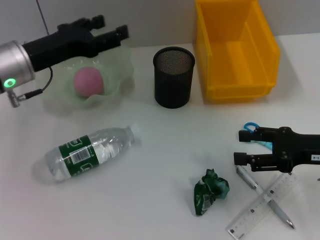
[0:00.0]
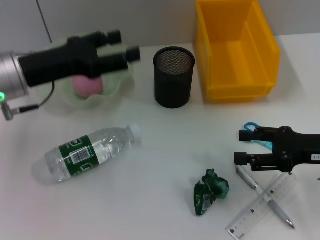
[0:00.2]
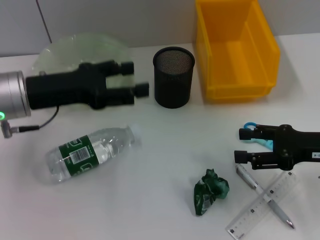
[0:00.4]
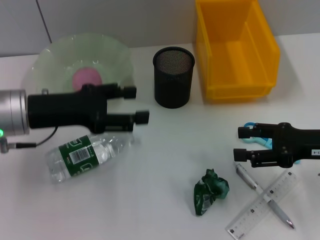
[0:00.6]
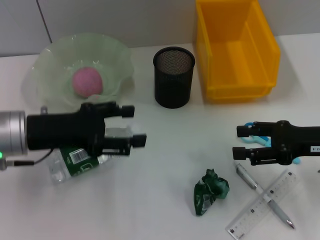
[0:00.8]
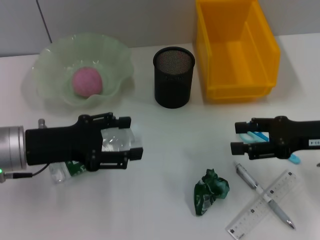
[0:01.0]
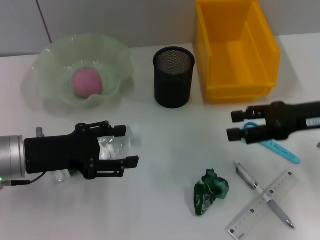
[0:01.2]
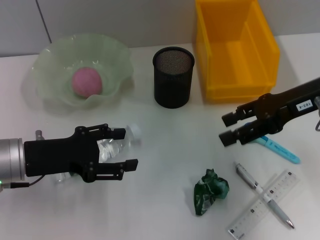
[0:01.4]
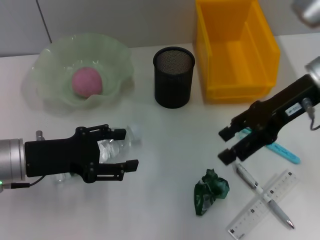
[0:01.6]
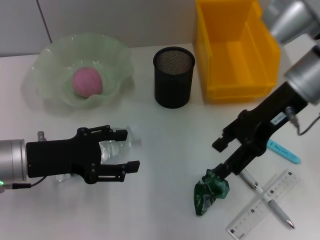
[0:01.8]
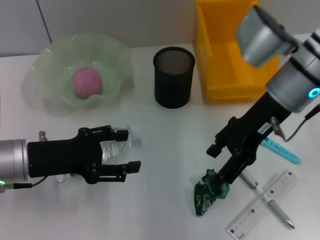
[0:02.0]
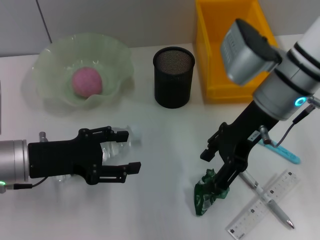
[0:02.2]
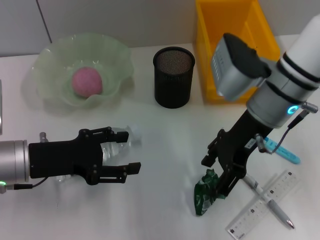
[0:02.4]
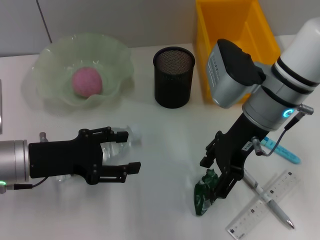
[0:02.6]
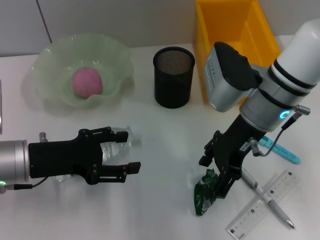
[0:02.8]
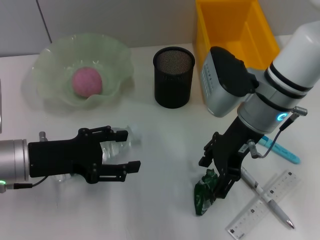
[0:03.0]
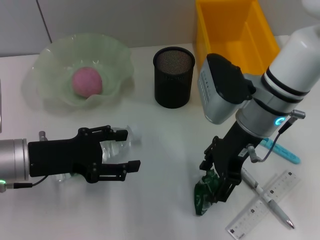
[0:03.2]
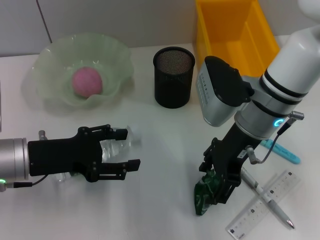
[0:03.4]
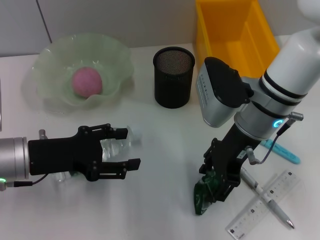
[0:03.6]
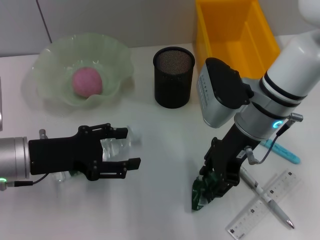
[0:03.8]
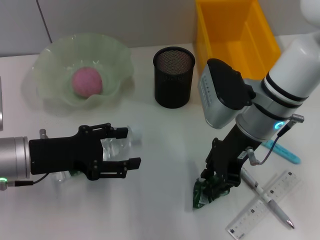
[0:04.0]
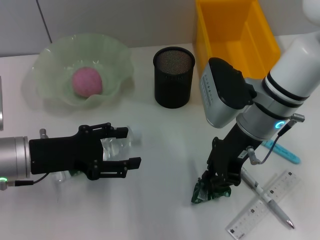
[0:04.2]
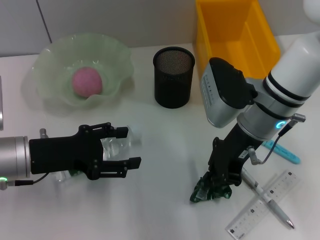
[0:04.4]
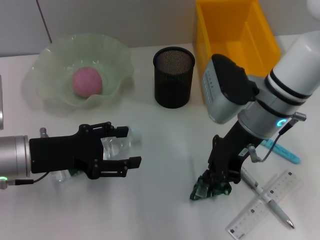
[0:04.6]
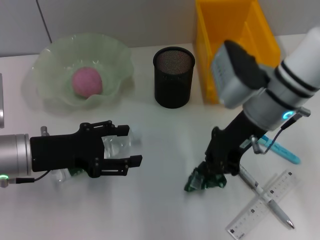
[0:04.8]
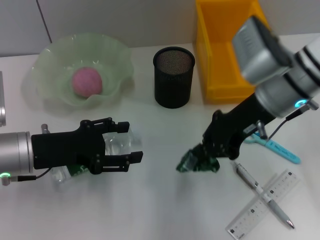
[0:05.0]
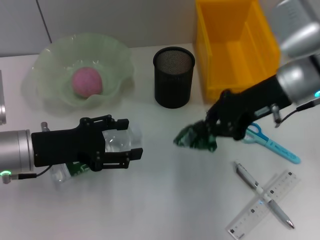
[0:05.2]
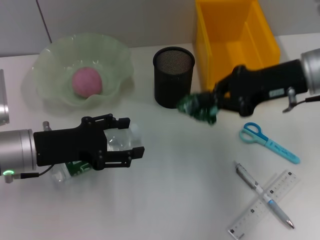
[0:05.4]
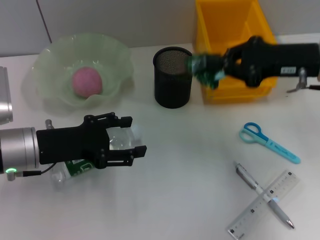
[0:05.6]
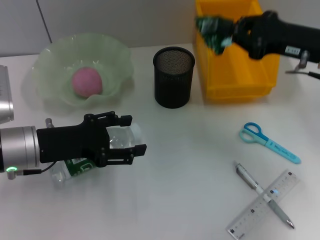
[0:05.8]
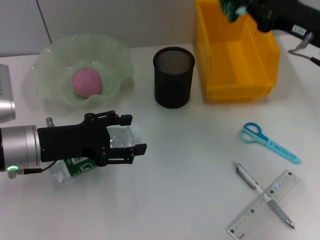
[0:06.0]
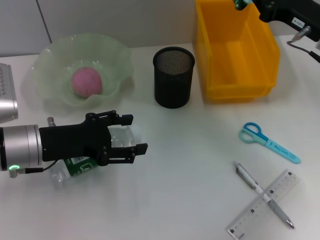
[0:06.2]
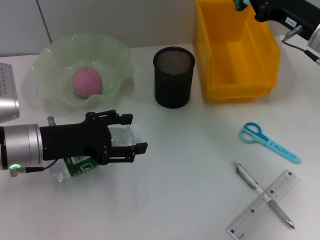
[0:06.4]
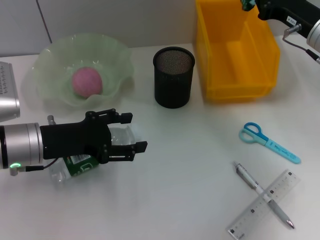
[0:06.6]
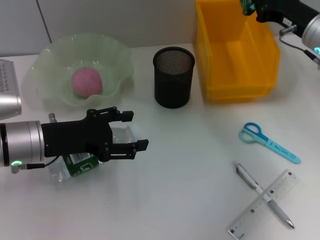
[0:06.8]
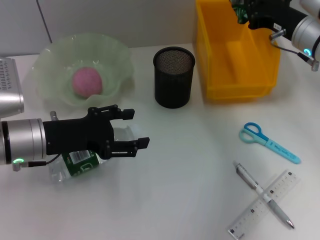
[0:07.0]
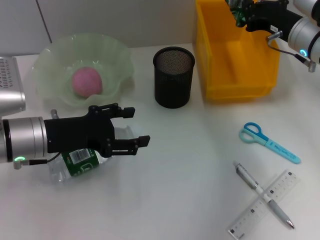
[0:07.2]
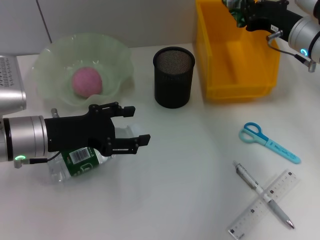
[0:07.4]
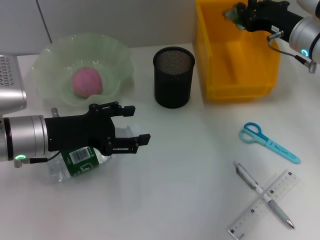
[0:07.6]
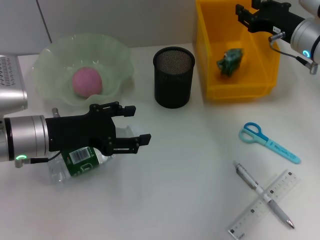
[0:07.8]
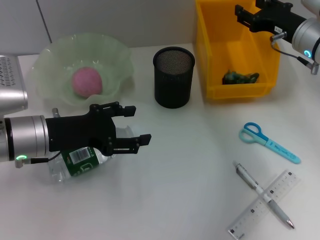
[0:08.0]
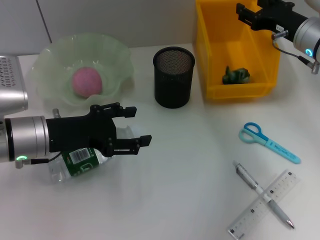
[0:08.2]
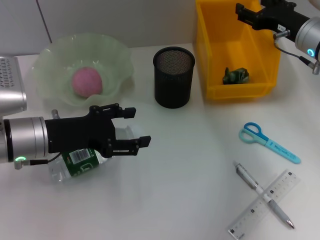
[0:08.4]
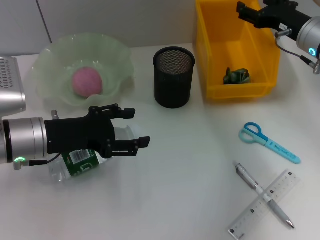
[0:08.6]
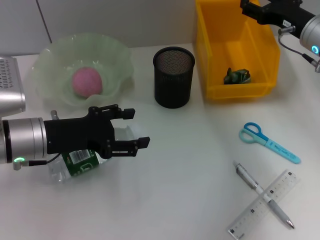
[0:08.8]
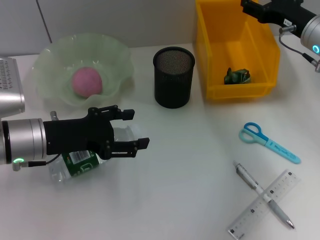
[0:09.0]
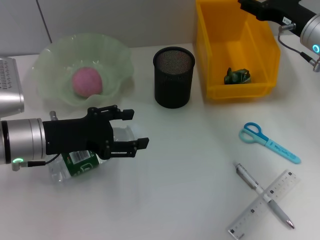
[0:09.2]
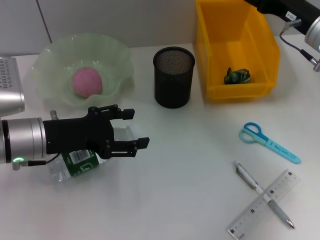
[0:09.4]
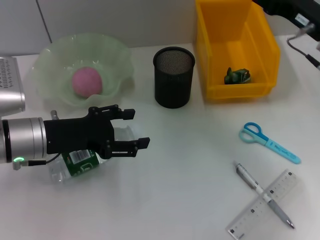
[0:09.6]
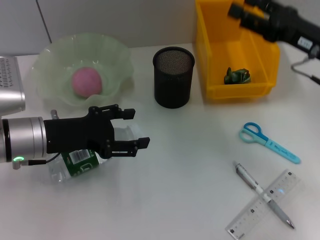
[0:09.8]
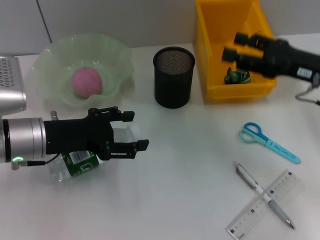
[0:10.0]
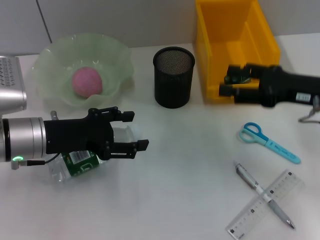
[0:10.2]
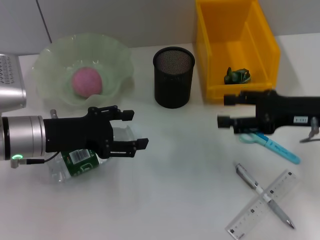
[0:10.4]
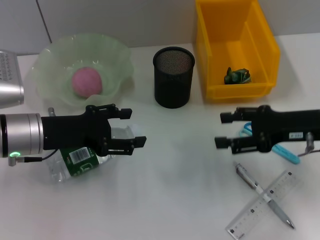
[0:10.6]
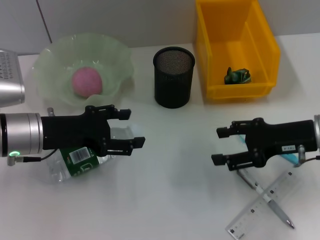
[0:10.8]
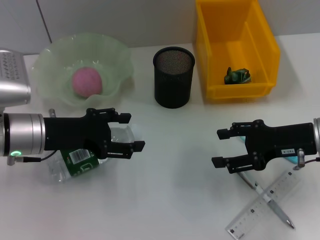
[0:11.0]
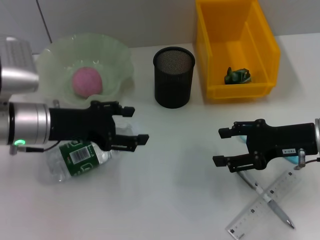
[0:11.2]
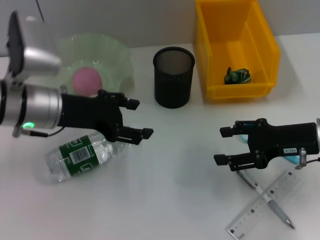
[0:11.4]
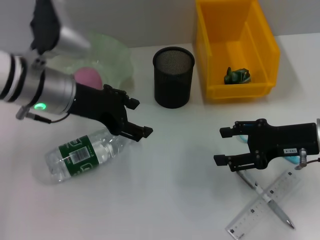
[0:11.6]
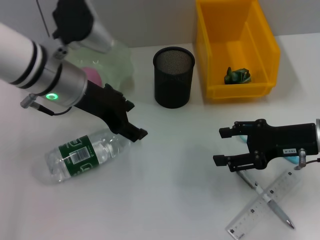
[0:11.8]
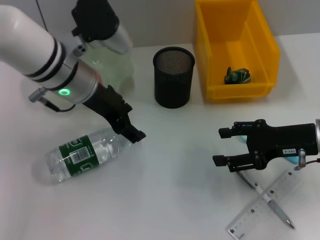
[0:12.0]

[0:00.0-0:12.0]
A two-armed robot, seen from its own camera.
Step, 0:00.0 to 0:03.8: Grab the plastic with the right hand.
Step, 0:04.2 to 0:07.8: Place the plastic into the trash can with the right hand.
0:00.0 to 0:01.6: The left gripper travels backward and downward by about 10 cm, while the right gripper moves upward, forward and to the left, about 15 cm.
0:01.6 to 0:03.0: The right gripper is displaced to the left by about 10 cm.
0:03.0 to 0:04.4: The right gripper closes.
0:04.4 to 0:06.0: The right gripper moves to the right, roughly 15 cm.
0:06.0 to 0:07.6: The right gripper goes about 5 cm forward.
0:07.6 to 0:09.0: The right gripper opens.
0:09.0 to 0:10.4: The right gripper heads backward, covering about 10 cm.
0:10.4 to 0:12.0: The left gripper goes some 15 cm to the right, upward and forward.

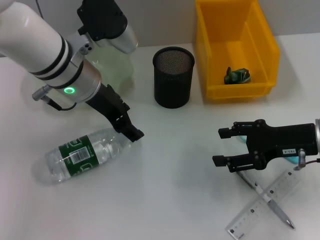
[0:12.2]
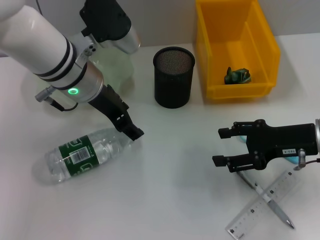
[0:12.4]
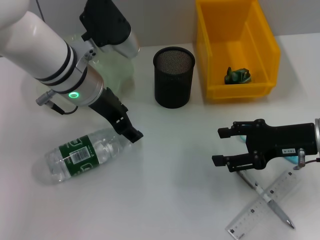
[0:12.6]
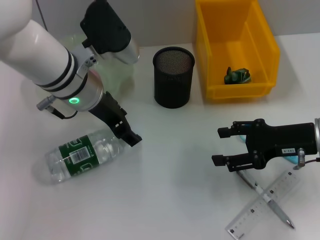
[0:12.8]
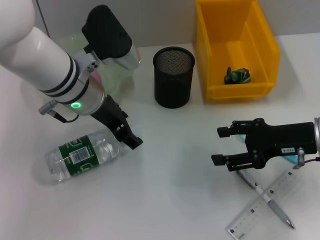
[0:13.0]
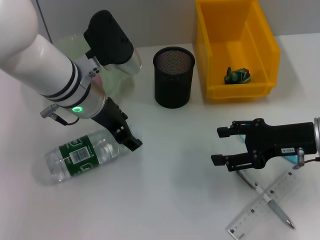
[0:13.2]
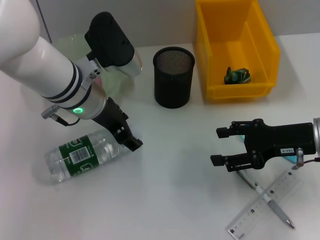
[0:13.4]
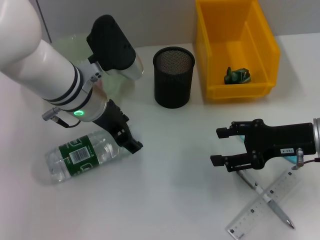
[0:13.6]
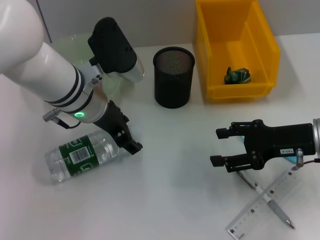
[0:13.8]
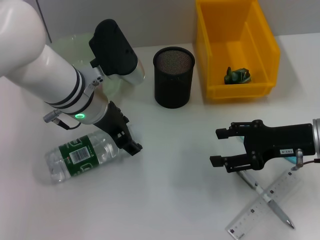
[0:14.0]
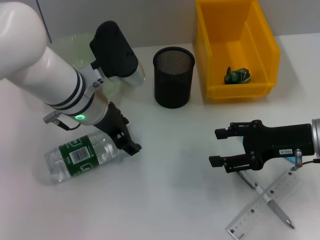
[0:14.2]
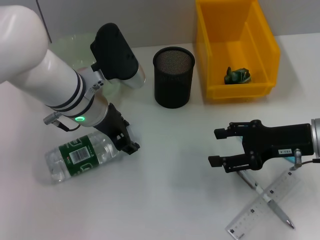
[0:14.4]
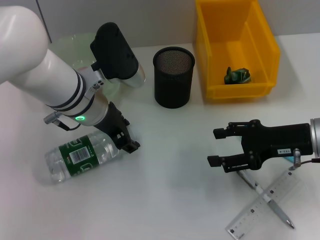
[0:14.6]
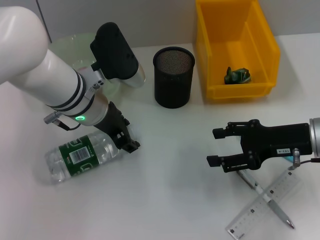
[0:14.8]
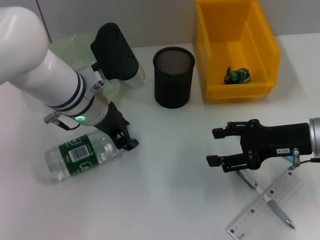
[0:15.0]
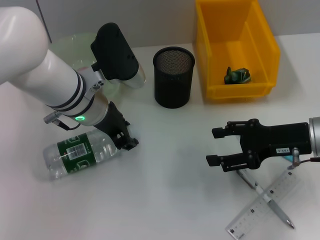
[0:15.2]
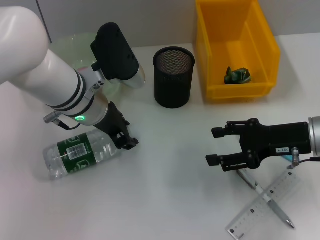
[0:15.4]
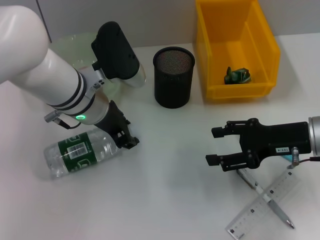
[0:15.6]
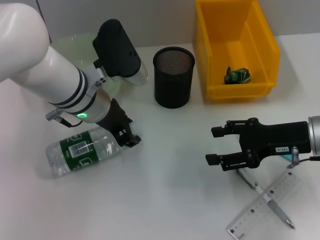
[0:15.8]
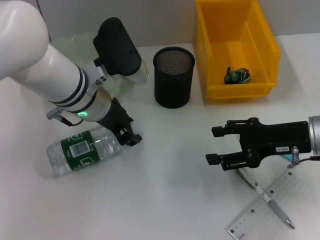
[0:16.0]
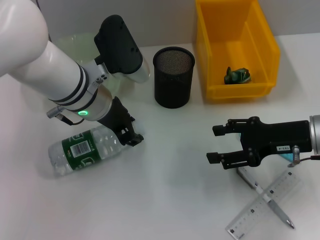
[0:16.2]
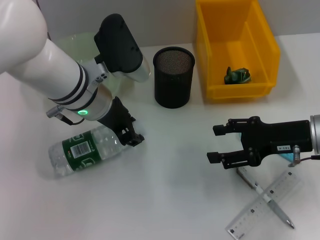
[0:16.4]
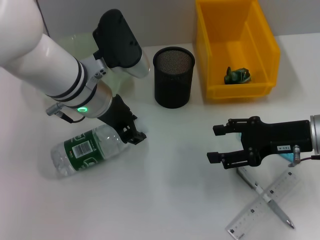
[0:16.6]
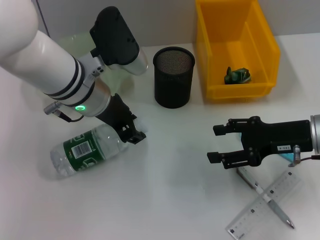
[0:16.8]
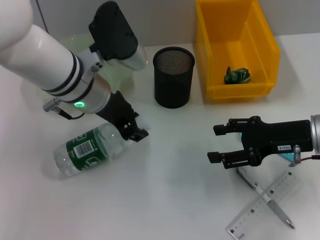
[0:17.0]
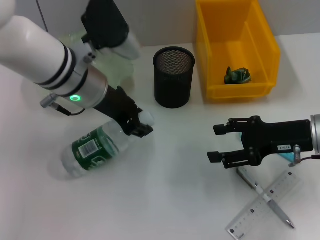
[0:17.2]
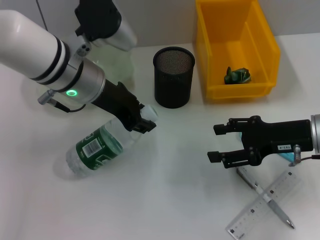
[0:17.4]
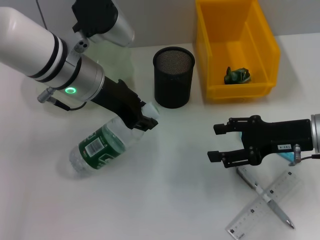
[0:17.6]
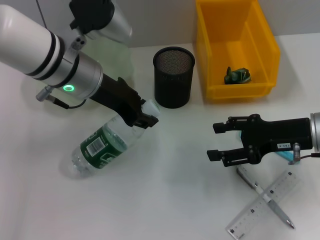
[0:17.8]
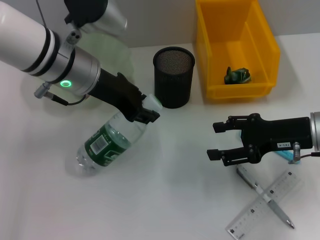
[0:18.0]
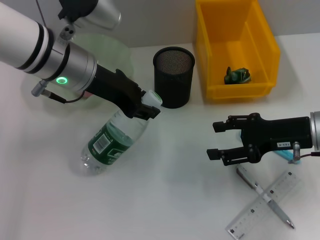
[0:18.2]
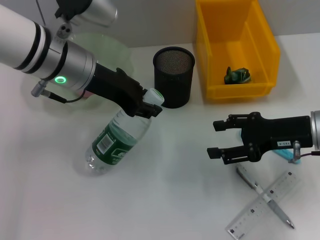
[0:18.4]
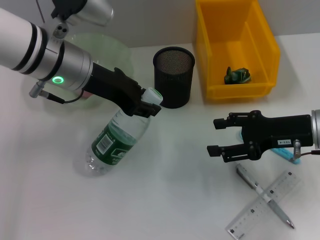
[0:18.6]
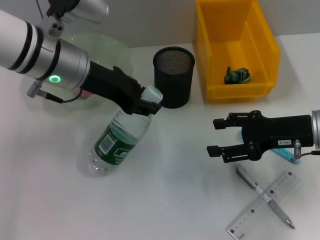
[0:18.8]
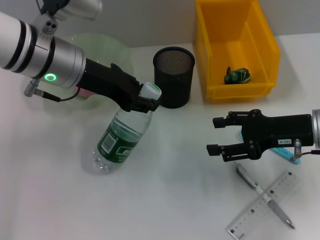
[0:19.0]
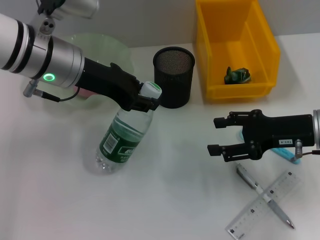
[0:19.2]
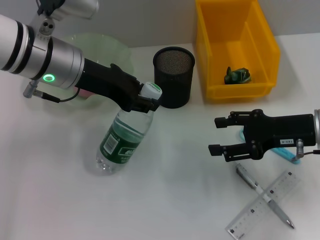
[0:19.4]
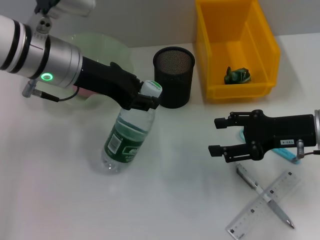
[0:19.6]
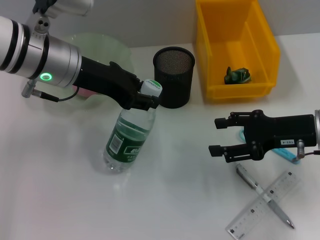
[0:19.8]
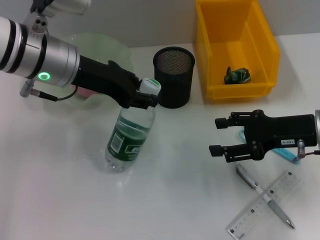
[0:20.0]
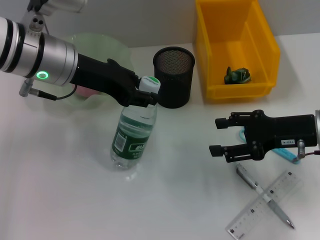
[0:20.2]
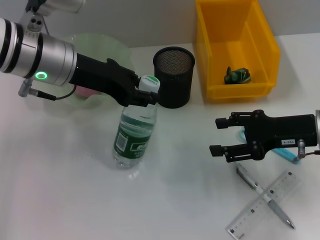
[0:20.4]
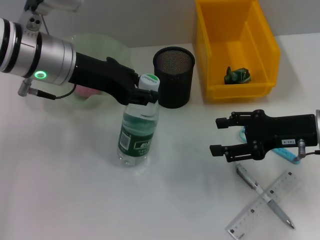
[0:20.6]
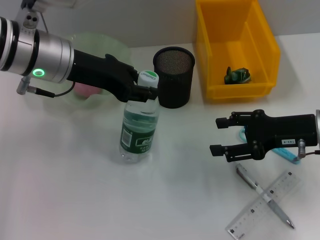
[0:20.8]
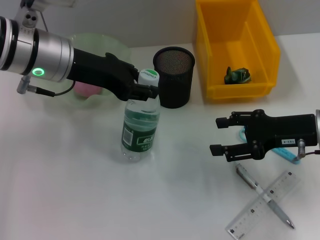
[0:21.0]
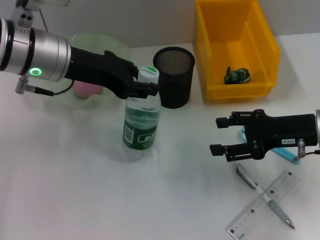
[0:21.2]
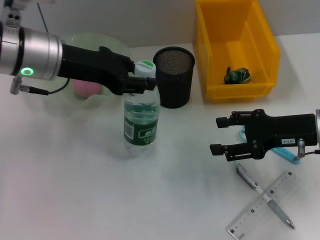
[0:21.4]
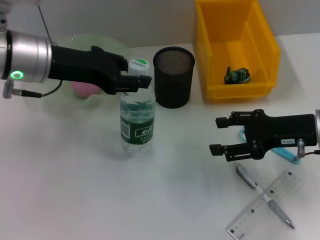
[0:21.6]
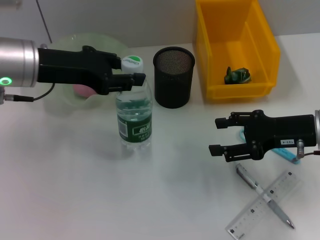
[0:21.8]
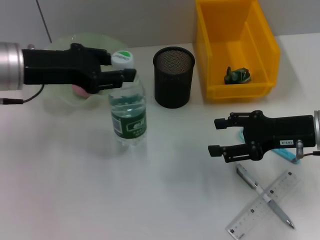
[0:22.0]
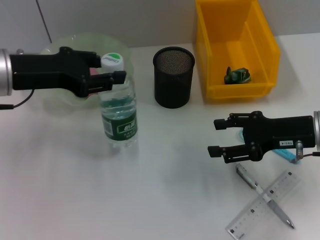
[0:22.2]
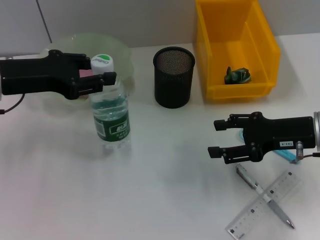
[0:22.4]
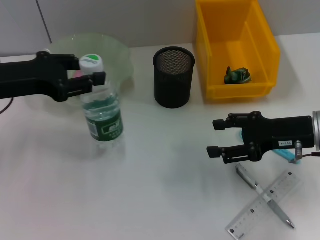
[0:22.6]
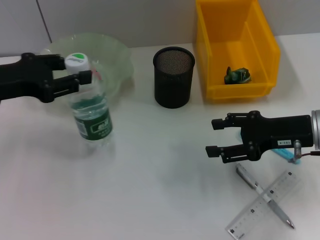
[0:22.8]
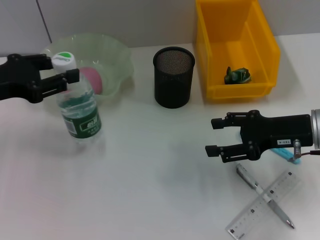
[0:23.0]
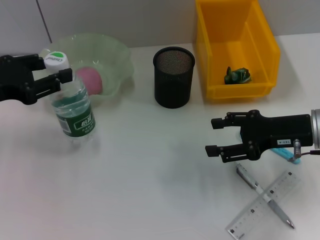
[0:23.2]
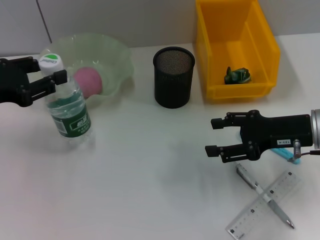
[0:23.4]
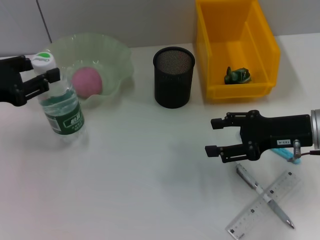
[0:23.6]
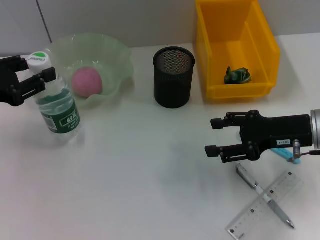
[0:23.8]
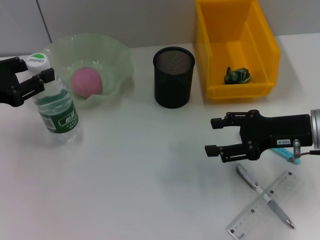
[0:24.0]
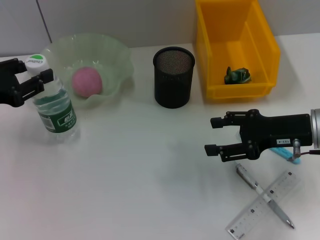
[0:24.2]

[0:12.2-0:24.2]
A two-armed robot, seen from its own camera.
Step, 0:12.2 to 0:14.8: Grab the water bottle with the left hand.
0:12.2 to 0:13.8: The grippers make only small movements.
0:13.8 to 0:15.2: The left gripper closes up.
0:15.2 to 0:16.6: The grippers make only small movements.
0:16.6 to 0:18.2: The left gripper ends up about 5 cm from where it was.
0:18.2 to 0:21.2: The grippers move only a little.
0:21.2 to 0:22.6: The left gripper shifts approximately 10 cm to the left.
0:22.6 to 0:24.2: The left gripper goes some 5 cm to the left.
